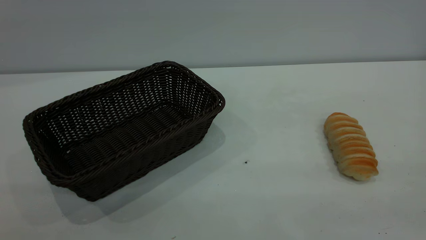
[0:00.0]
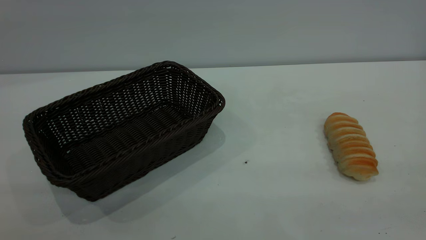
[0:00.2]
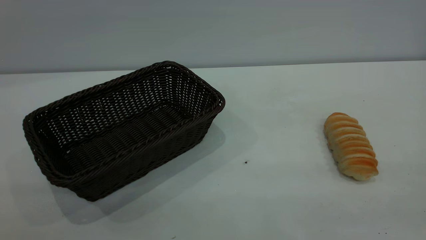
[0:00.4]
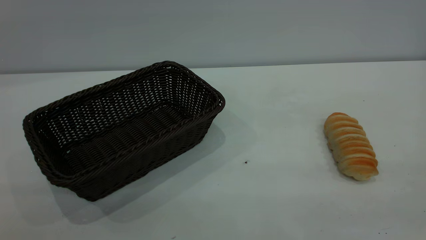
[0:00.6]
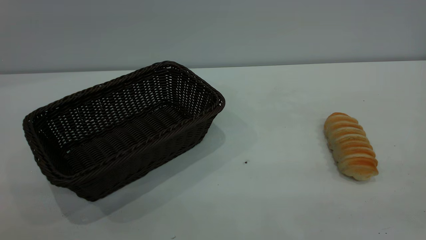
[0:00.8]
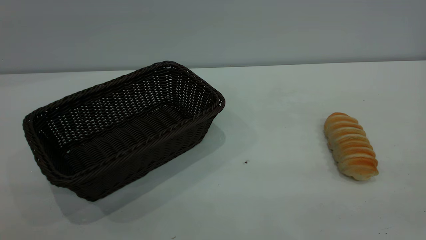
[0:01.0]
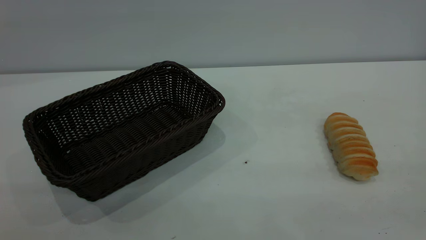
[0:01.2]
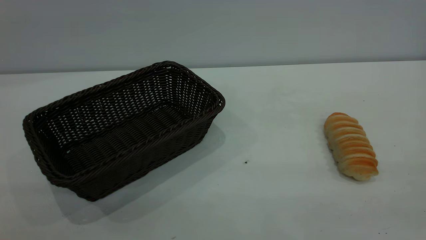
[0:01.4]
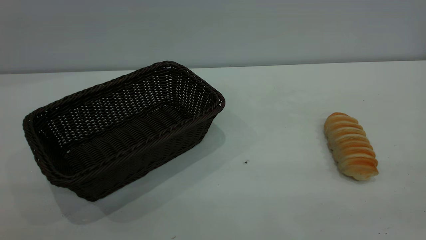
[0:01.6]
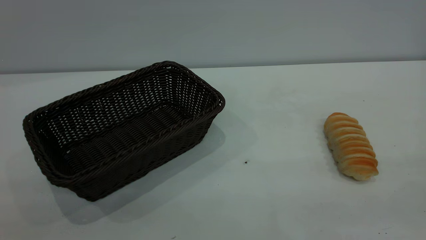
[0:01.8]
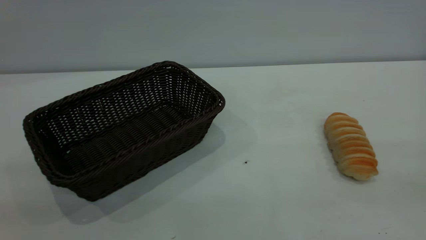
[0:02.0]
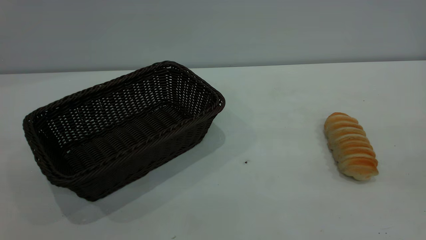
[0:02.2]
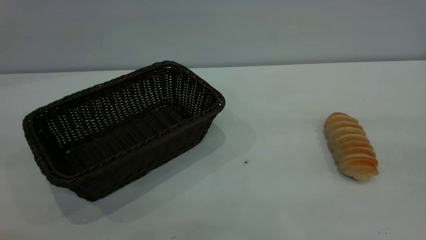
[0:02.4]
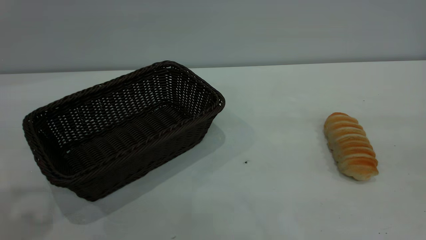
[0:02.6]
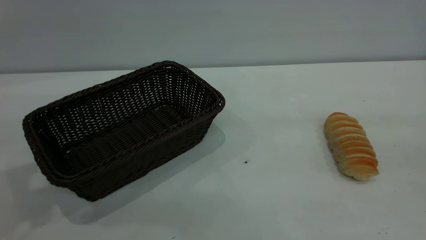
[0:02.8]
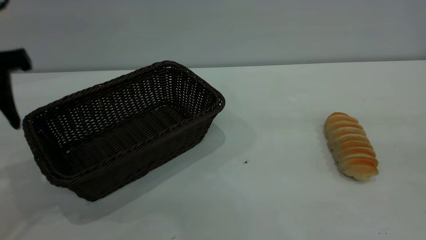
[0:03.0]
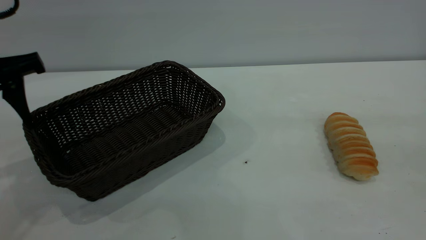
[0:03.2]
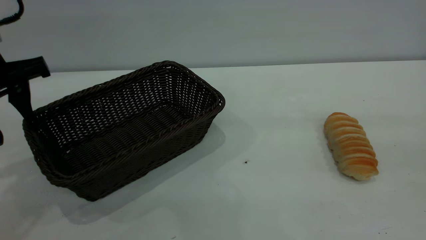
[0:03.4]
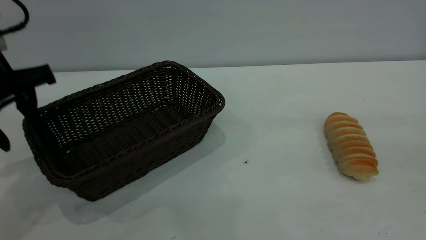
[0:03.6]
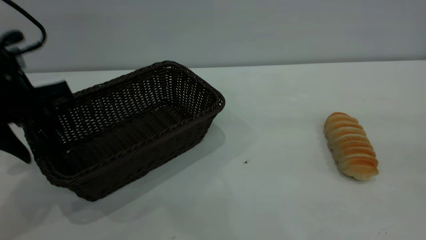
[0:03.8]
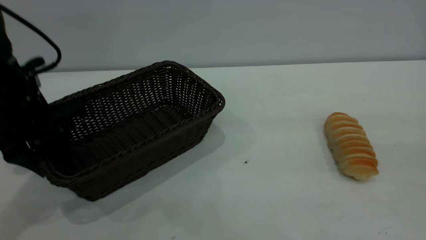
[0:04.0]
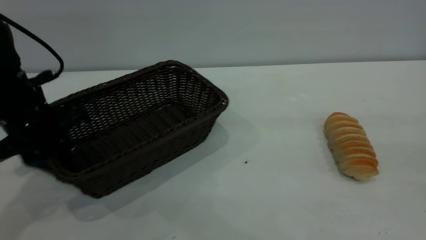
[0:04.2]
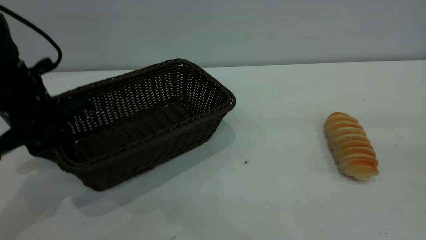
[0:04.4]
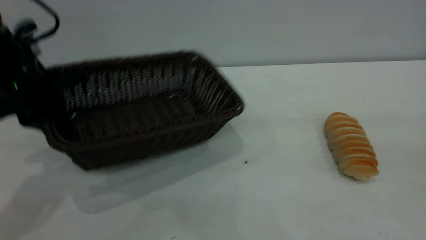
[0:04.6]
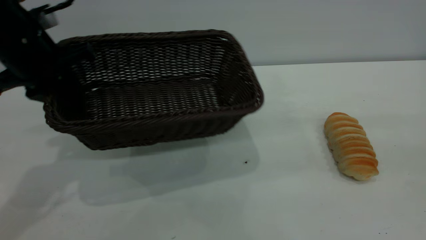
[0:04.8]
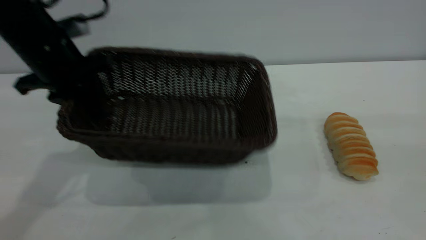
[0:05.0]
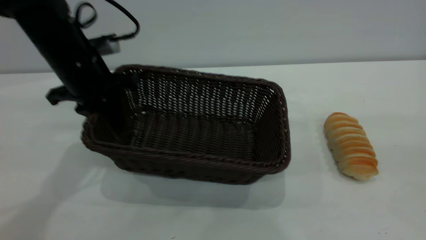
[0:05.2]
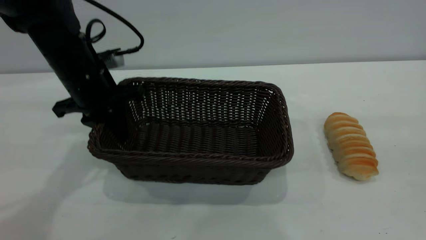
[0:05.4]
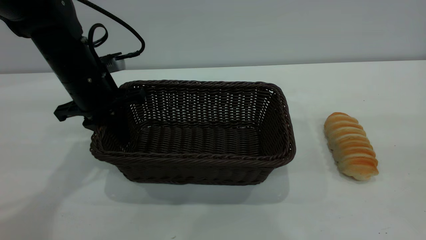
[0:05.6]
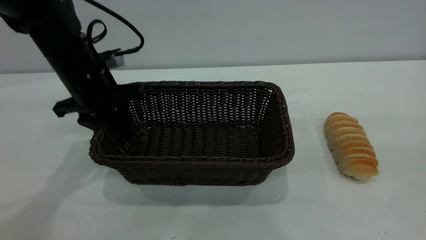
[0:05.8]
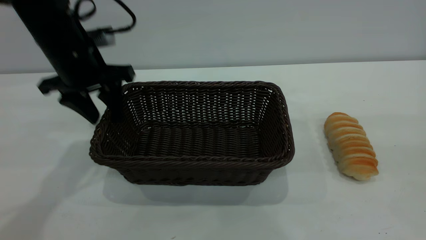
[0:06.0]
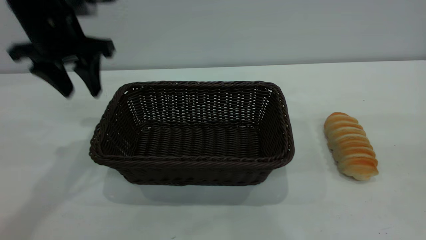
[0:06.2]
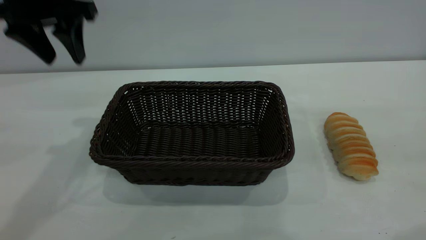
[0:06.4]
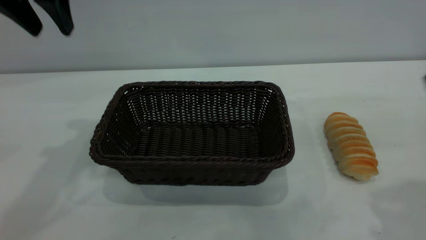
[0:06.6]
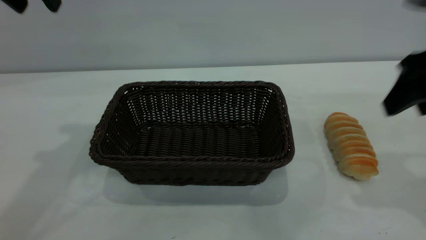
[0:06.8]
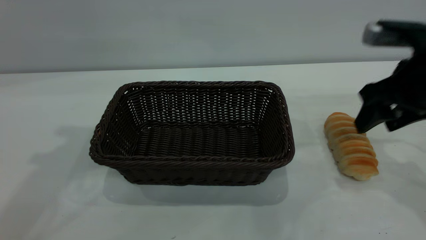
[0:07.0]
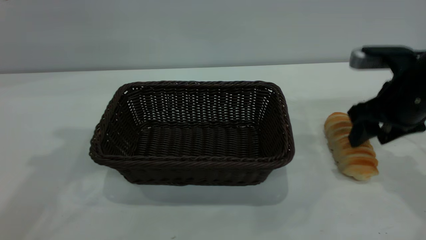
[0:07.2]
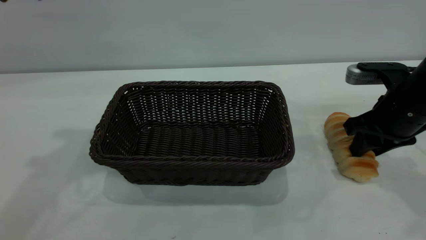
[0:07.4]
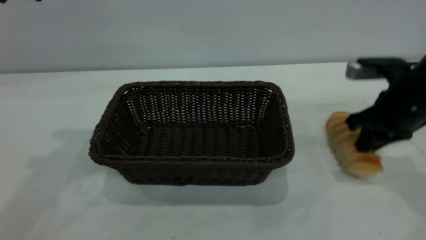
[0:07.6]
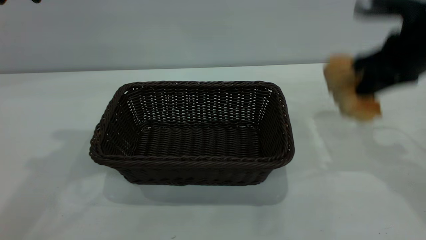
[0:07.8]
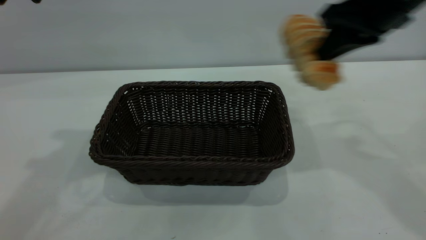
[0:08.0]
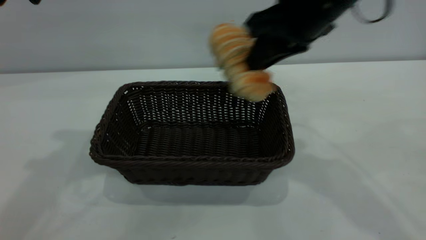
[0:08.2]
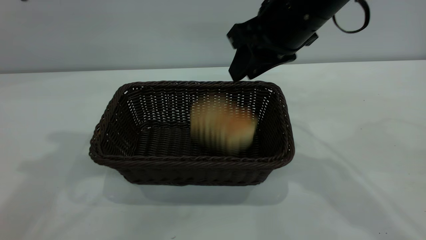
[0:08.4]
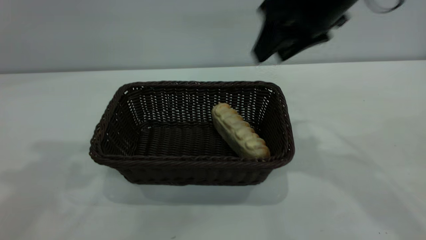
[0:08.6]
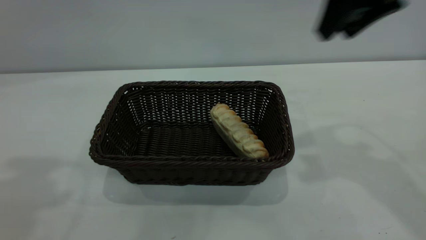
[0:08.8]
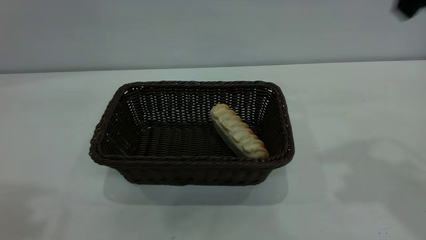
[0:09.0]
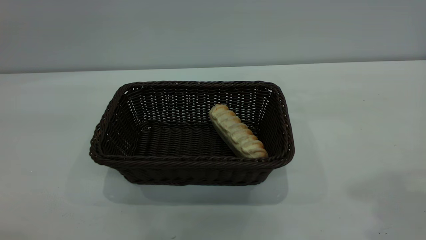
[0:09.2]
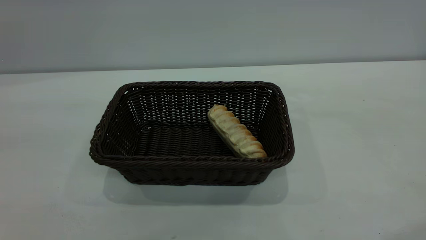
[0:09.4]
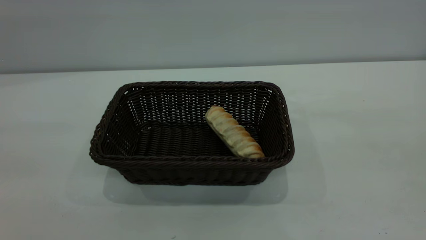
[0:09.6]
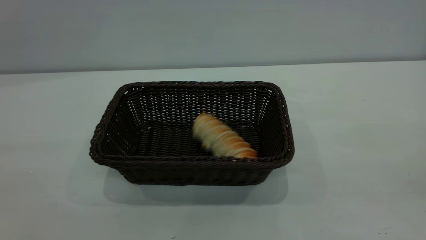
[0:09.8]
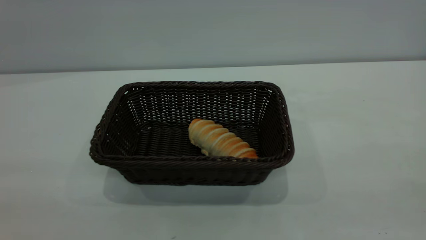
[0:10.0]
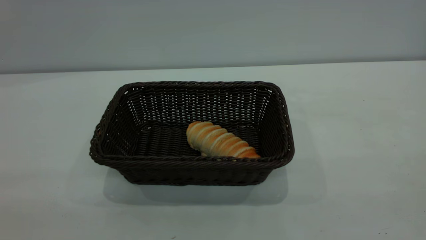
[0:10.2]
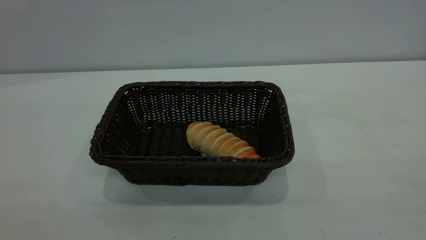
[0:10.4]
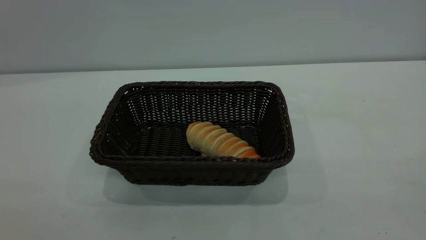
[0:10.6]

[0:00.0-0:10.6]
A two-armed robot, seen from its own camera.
Task of the whole recording: One hand grasps the black basket and places it in the middle of the table, while the other hand picks up the long bread and puts it into the black basket.
Step, 0:00.0 to 0:06.2: Move the basket to the center of view.
Step, 0:07.8 to 0:08.6: place the bread into the basket.
0:00.0 to 0:01.6: The two grippers keep their place.
0:01.6 to 0:03.0: The left gripper heads forward, covering approximately 30 cm.
0:03.0 to 0:04.6: The left gripper closes its fingers.
0:04.6 to 0:06.0: The left gripper goes some 5 cm forward, goes downward and returns, about 5 cm each way, and opens up.
0:06.0 to 0:07.6: The right gripper travels forward and downward by about 30 cm, and closes its fingers. The left gripper goes roughly 20 cm upward.
0:07.6 to 0:09.0: The right gripper moves upward, roughly 25 cm, and opens up. Meanwhile the left gripper travels backward and upward by some 15 cm.
0:09.0 to 0:10.6: The right gripper goes about 25 cm backward, while the left gripper moves backward and downward, some 25 cm.

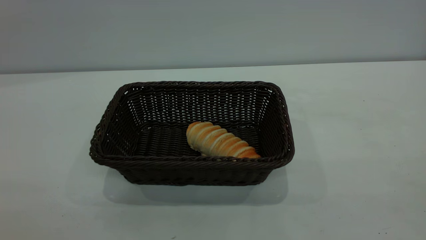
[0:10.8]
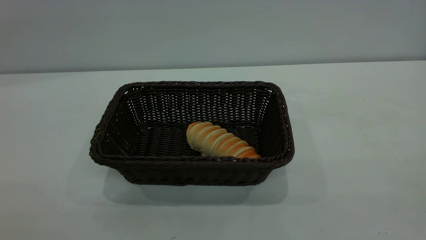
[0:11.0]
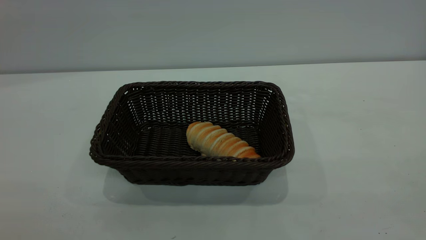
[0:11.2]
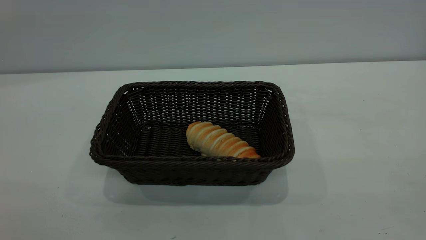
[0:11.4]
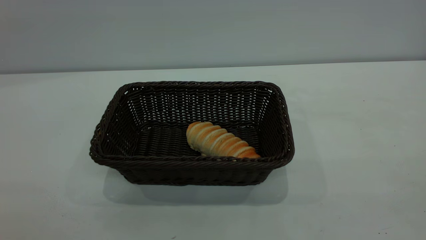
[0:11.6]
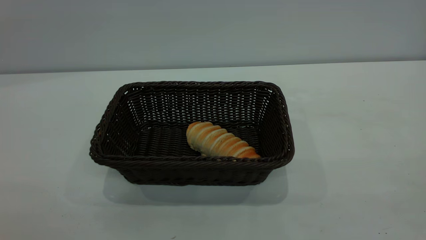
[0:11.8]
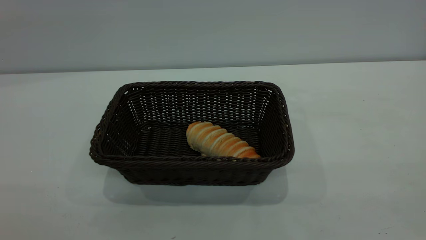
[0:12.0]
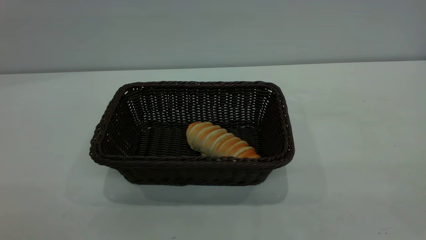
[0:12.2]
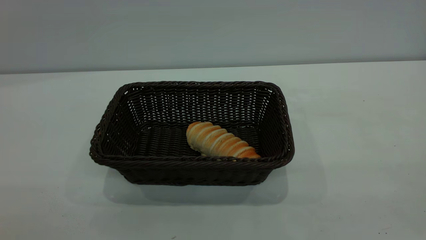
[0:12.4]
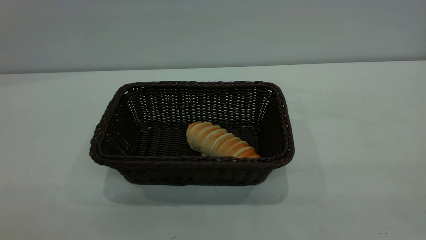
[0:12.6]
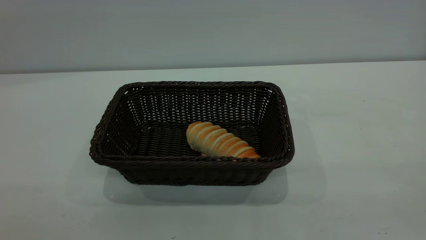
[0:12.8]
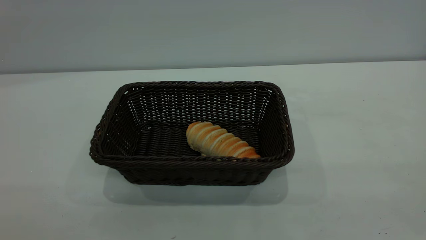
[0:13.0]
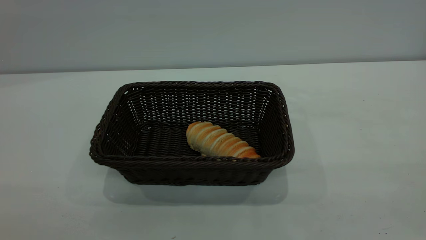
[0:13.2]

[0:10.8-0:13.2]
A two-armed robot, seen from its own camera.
Task of the whole recording: One hand grasps the black basket and places it in the middle of the table, while the other hand picks up the long bread and puts it into the black basket.
0:12.0 to 0:13.2: The two grippers keep their place.

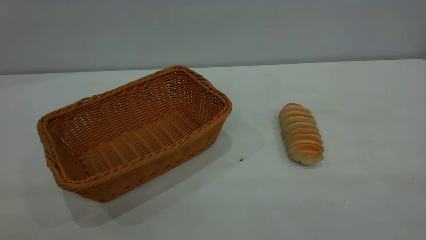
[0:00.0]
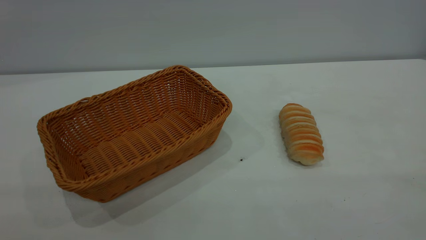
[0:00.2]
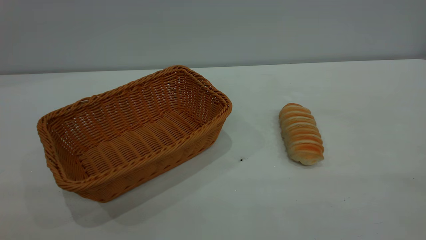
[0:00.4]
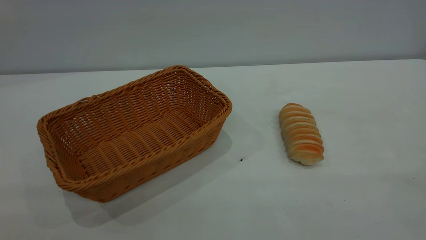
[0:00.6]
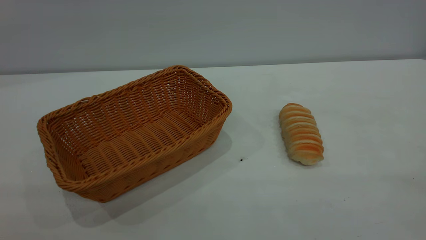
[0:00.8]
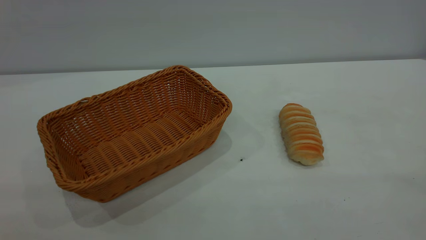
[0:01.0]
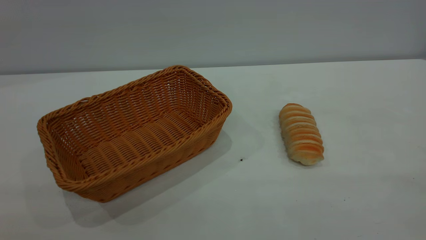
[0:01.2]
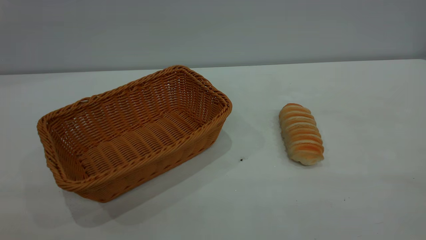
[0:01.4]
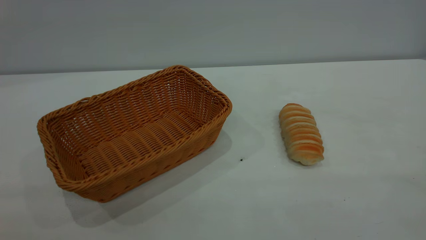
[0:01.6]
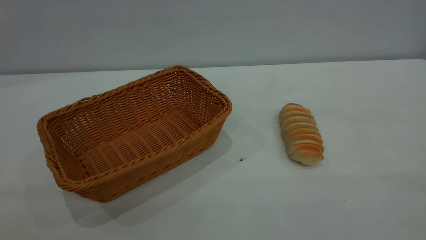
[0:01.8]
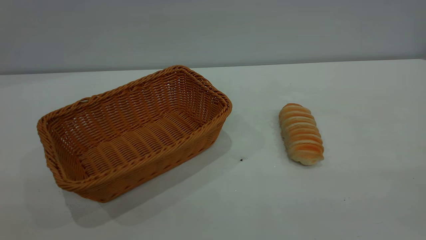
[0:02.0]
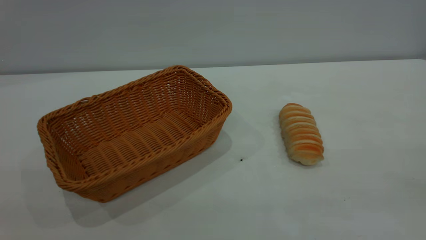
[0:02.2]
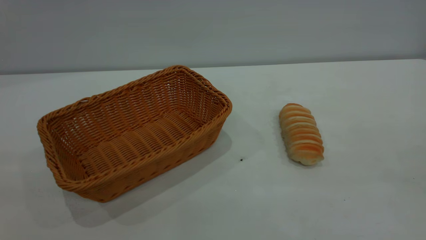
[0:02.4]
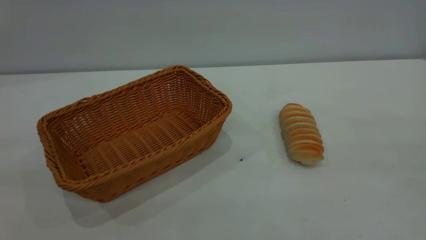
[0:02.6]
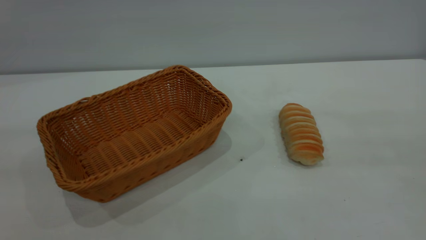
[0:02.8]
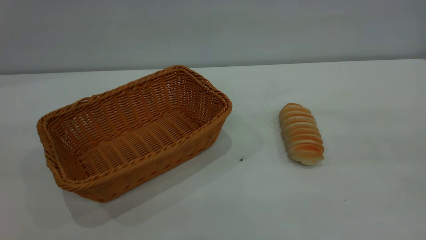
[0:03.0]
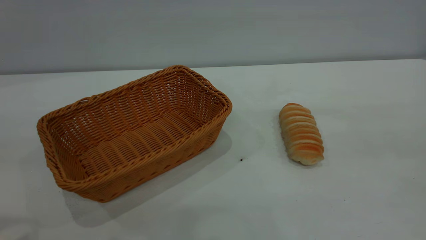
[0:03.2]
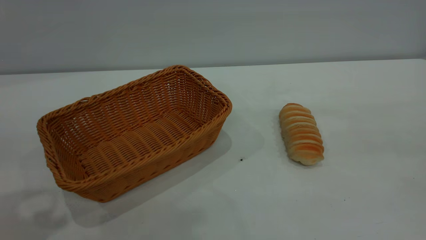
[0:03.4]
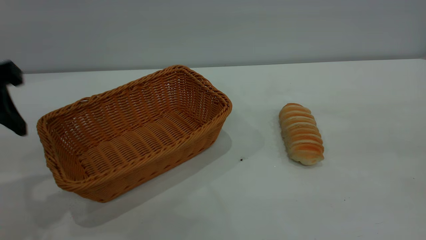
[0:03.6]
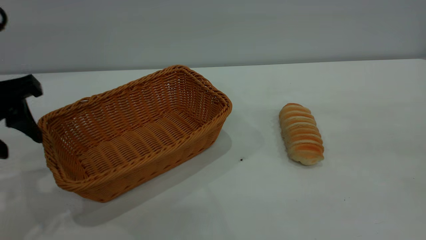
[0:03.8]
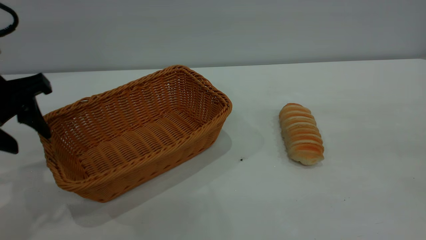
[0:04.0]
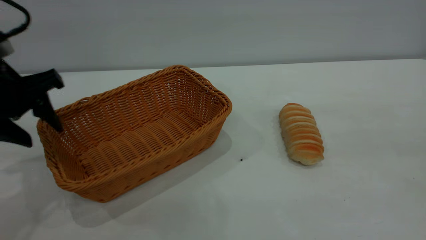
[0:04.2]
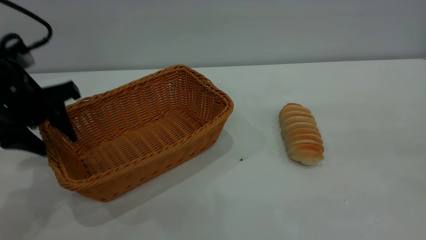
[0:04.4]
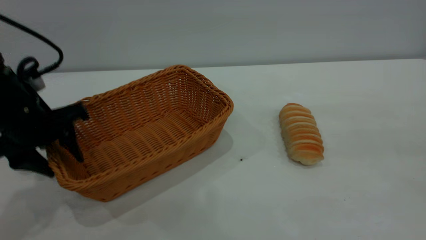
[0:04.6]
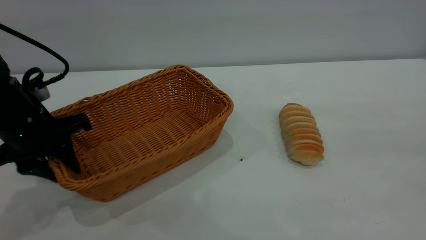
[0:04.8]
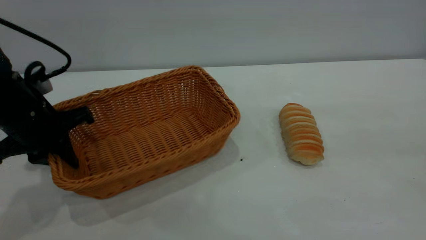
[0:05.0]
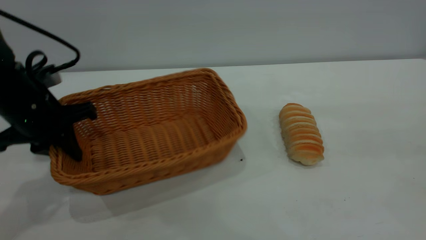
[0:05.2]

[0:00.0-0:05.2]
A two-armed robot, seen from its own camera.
Task of the whole recording: One hand grasps the yellow basket and places it in the middle of the table, while the other hand picks up the long bread and puts it into the yellow basket.
0:00.0 to 0:01.8: Neither gripper changes place.
0:03.4 to 0:05.2: The left gripper shifts roughly 15 cm downward and forward, and closes.
